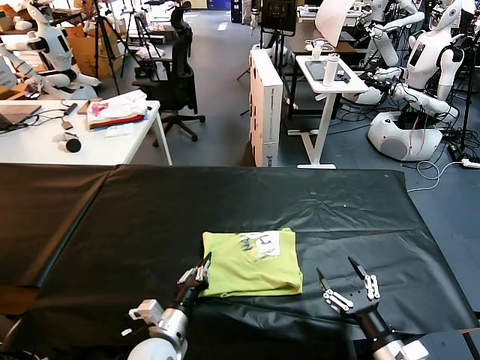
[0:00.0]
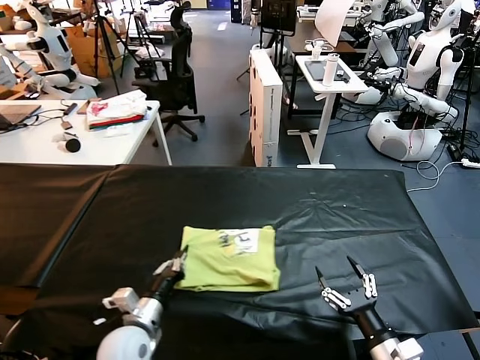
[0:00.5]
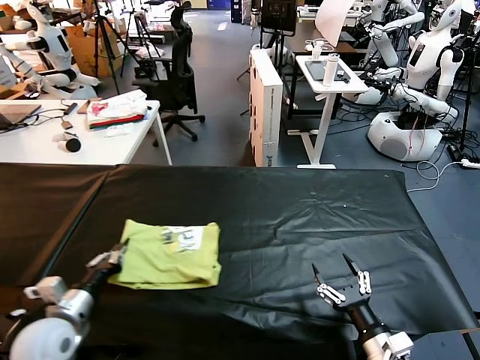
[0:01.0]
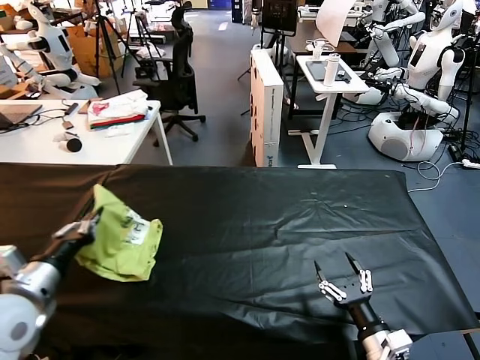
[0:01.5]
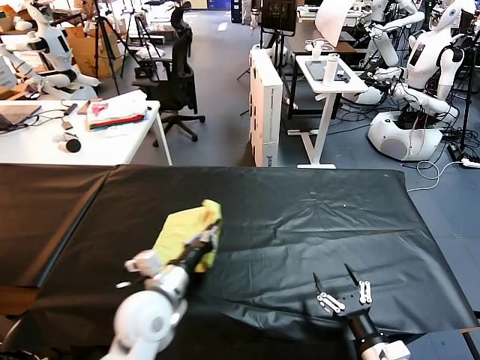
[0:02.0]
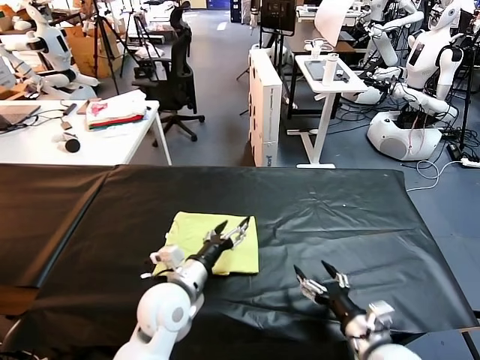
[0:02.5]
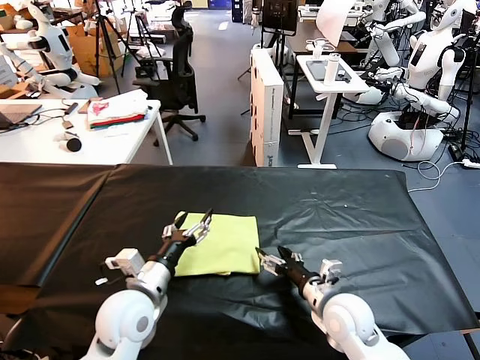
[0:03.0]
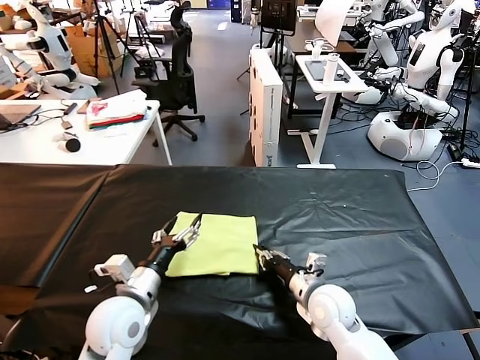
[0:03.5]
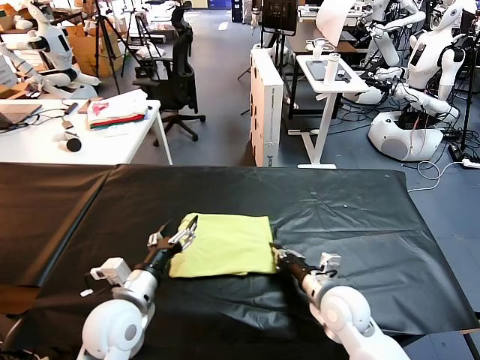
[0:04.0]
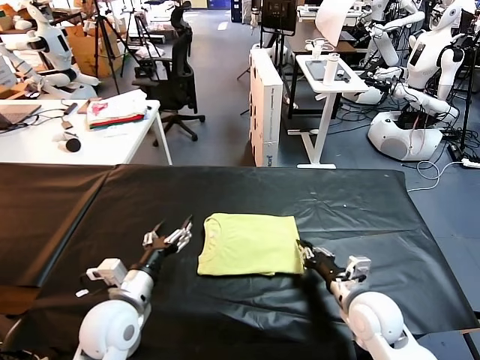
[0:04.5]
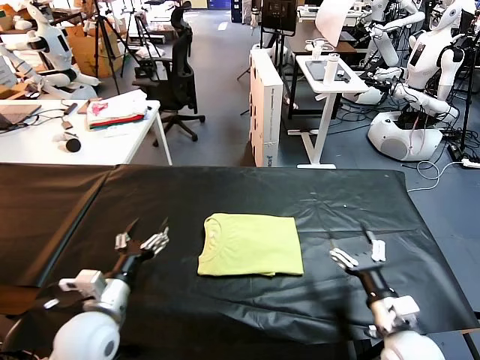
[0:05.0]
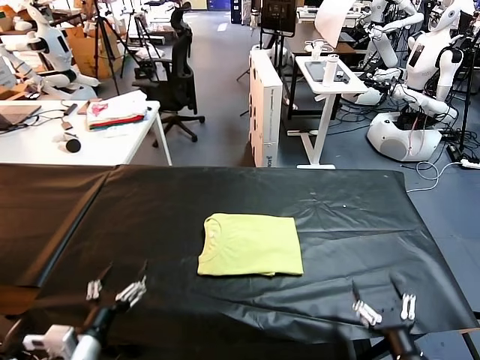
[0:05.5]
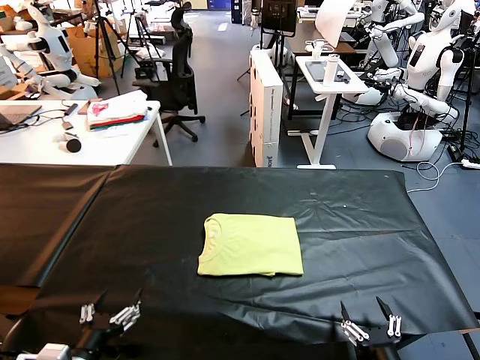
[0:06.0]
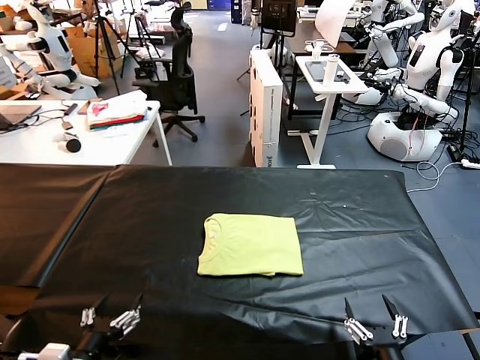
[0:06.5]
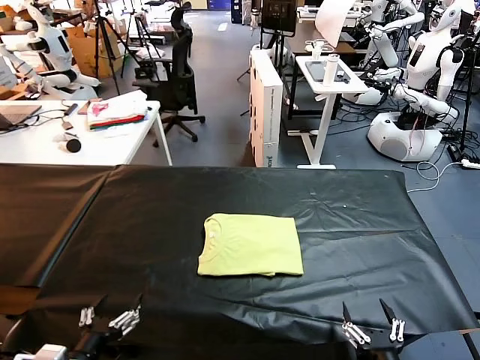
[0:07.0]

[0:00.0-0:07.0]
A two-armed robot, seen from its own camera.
Task of the whole recording: fold and organize the clothes.
Step, 0:00.0 to 0:02.0: Flip the folded clothes over with left gripper.
Step, 0:03.0 to 0:04.5: Drag the clothes to the center of the table.
0:00.0 to 0:02.0: The left gripper is displaced upward by about 10 cm, and travels to the left and back again, some 20 cm each way.
0:02.0 to 0:03.5: The left gripper opens. The right gripper shifts approximately 20 cm forward and to the left, and closes up.
0:03.5 to 0:05.0: The right gripper is displaced to the right and backward by about 15 cm, and opens.
0:05.0 to 0:07.0: Both grippers move backward, roughly 15 cm.
